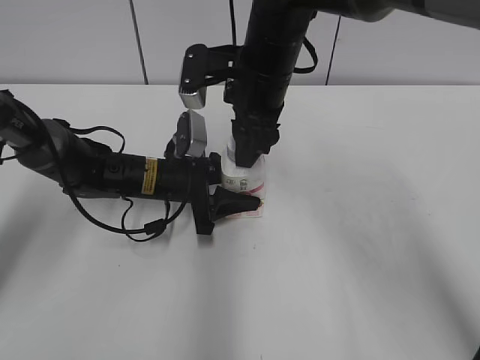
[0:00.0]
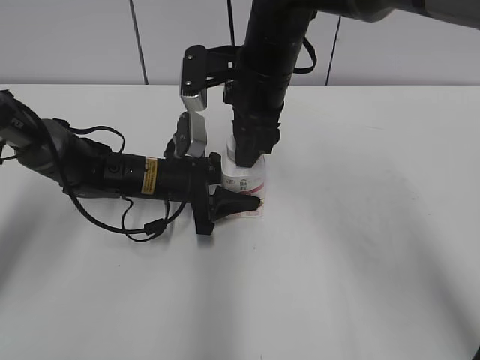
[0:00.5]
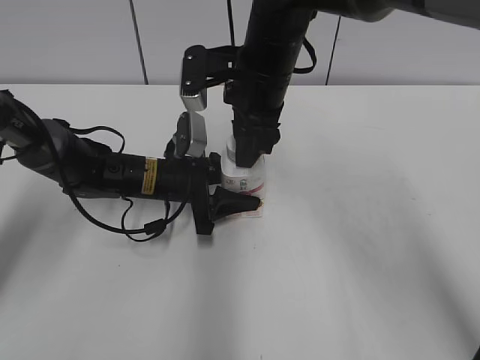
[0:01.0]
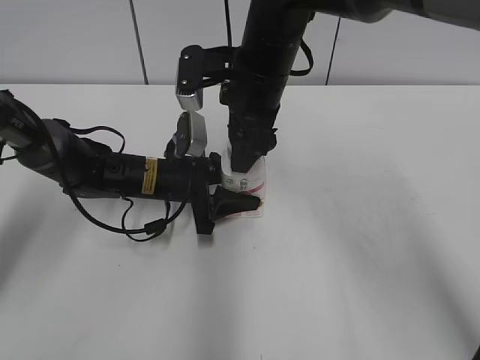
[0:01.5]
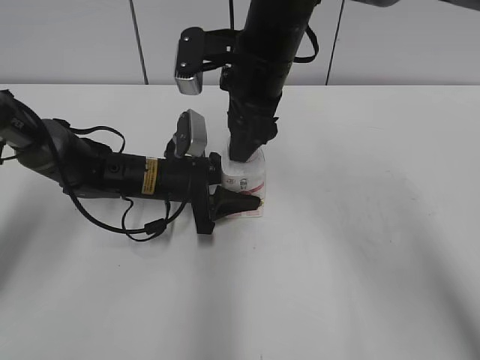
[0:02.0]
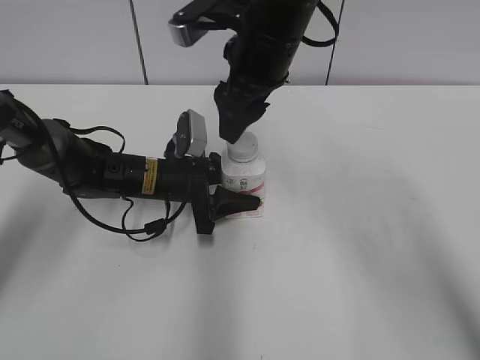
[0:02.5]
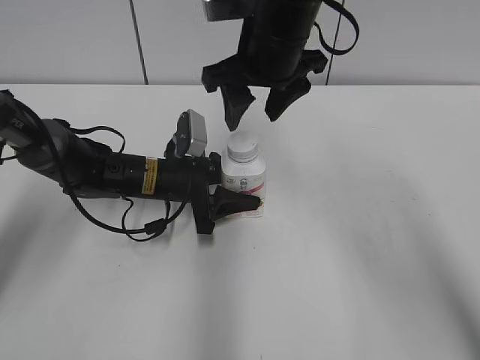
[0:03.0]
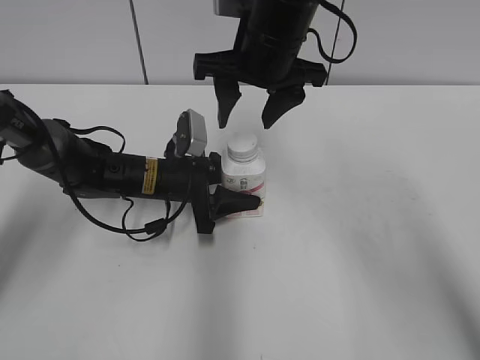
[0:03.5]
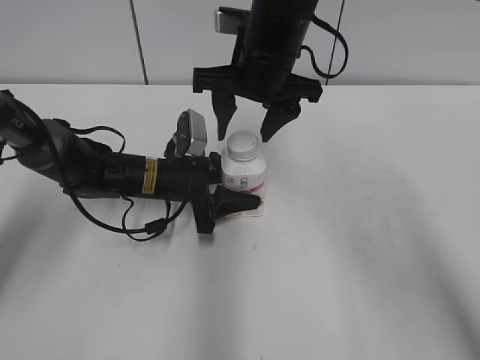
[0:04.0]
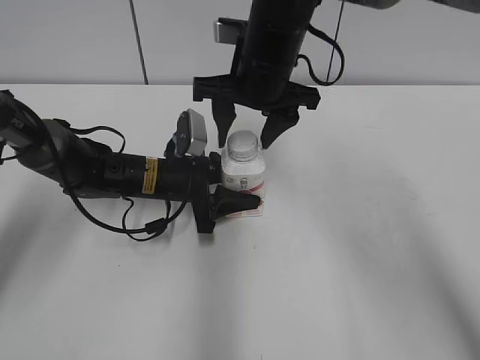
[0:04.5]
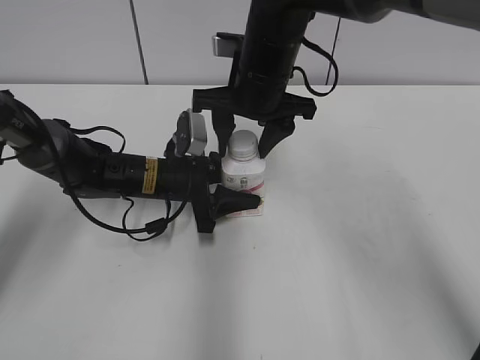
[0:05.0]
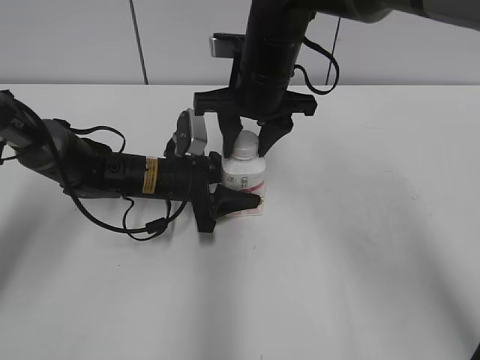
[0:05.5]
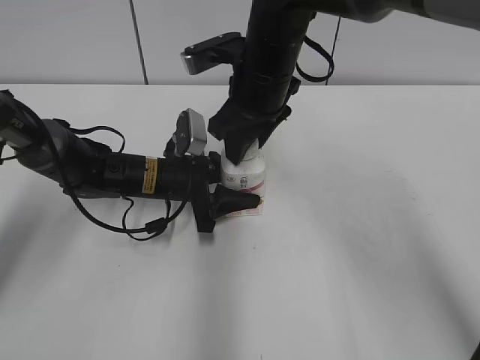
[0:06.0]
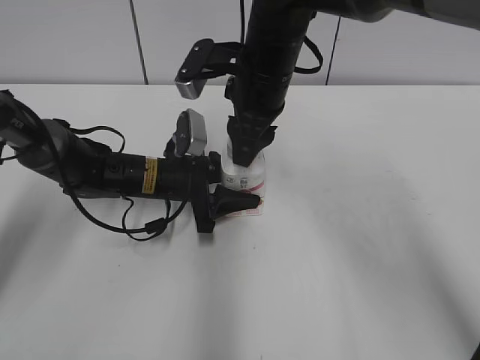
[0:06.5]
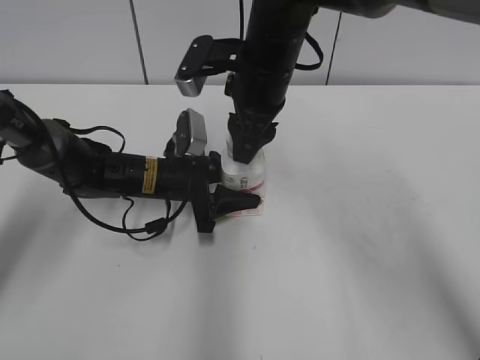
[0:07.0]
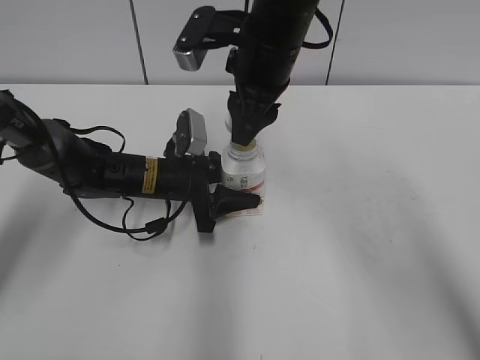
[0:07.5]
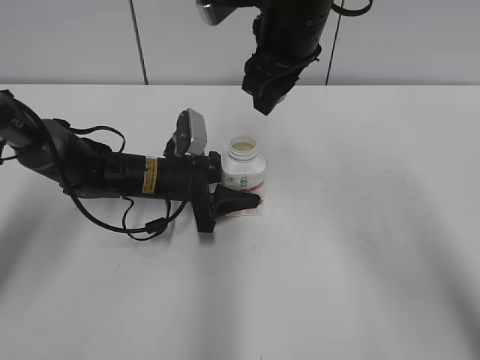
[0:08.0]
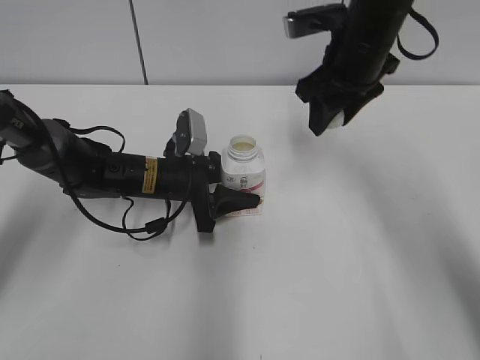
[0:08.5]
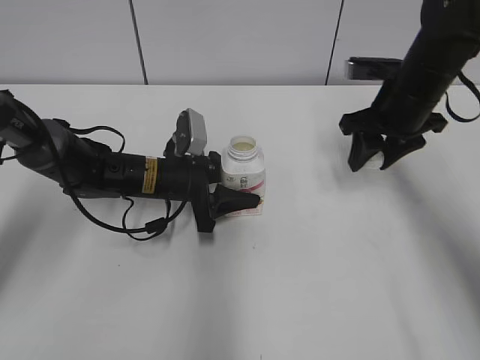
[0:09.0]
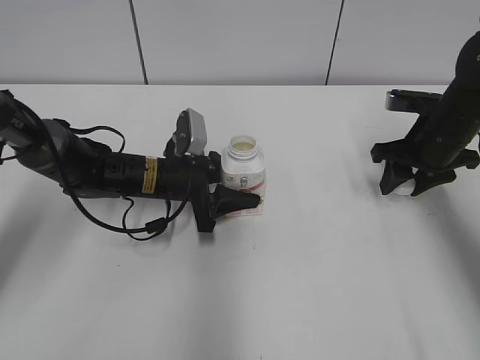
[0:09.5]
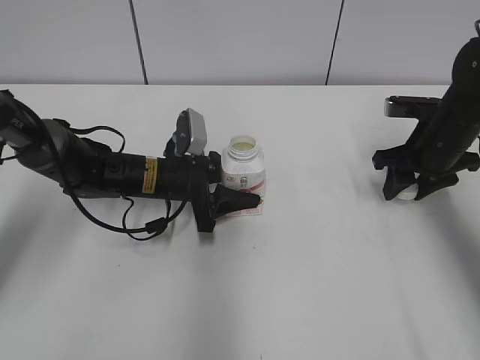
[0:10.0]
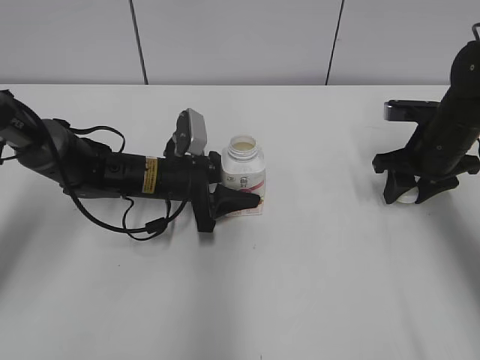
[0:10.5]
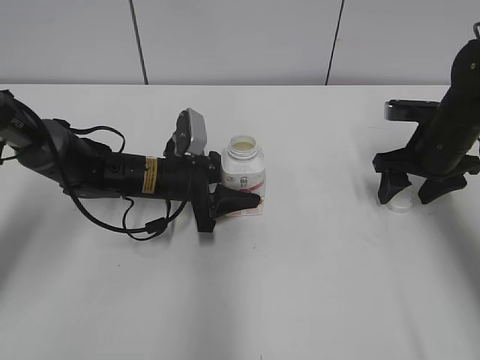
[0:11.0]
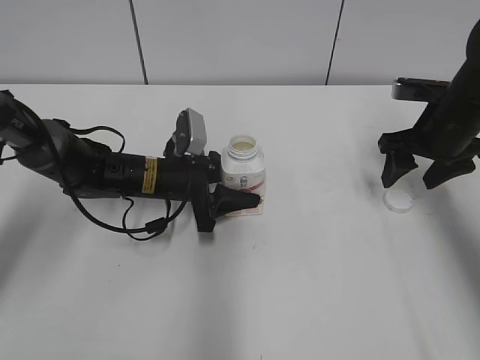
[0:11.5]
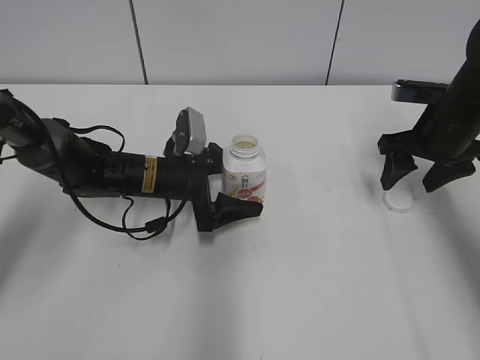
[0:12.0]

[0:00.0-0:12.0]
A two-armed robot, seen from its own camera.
Step, 0:08.0 to 0:11.0: Place the bottle cap on the right.
0:00.0 to 0:02.0: The right gripper opens its fingers.
0:04.0 to 0:06.0: The right gripper closes its fingers.
0:06.0 to 0:08.0: The right gripper shifts roughly 5 cm upward.
0:08.0 to 0:10.0: The right gripper shifts approximately 25 cm to the right and downward.
0:10.0 to 0:12.0: The left gripper opens up. Meanwhile the right gripper opens its fingers.

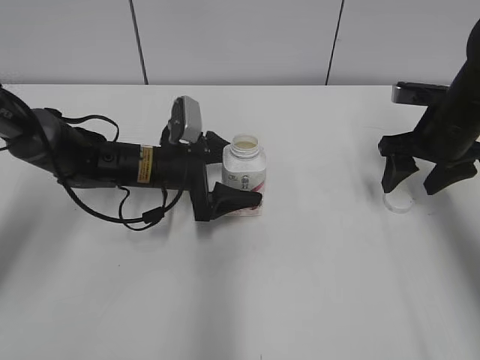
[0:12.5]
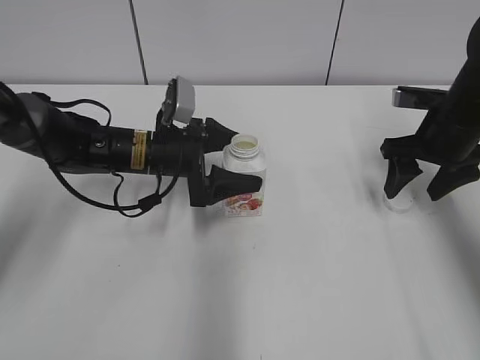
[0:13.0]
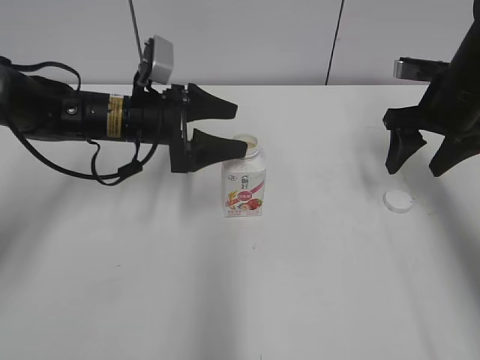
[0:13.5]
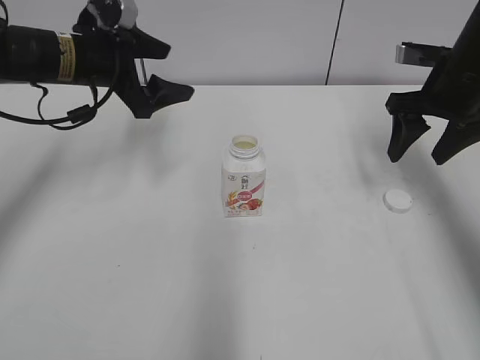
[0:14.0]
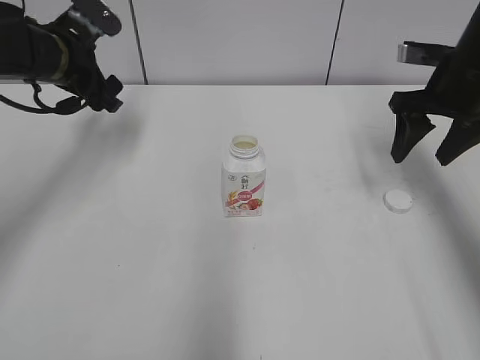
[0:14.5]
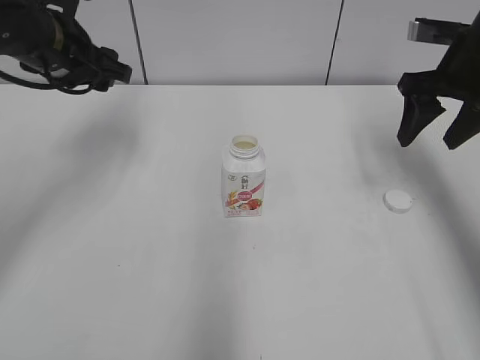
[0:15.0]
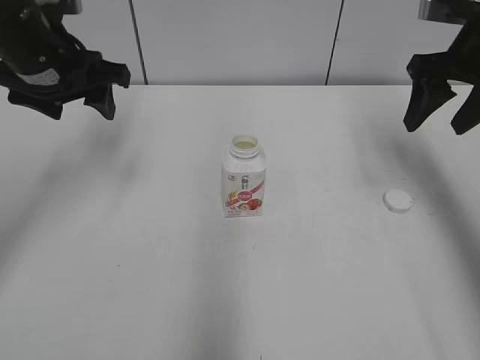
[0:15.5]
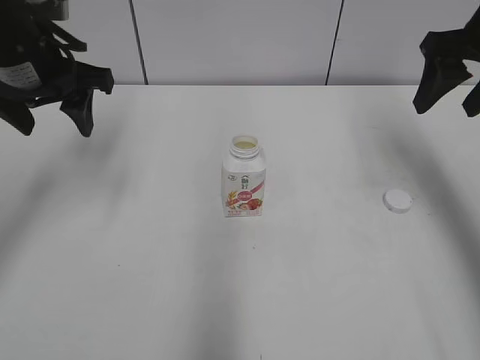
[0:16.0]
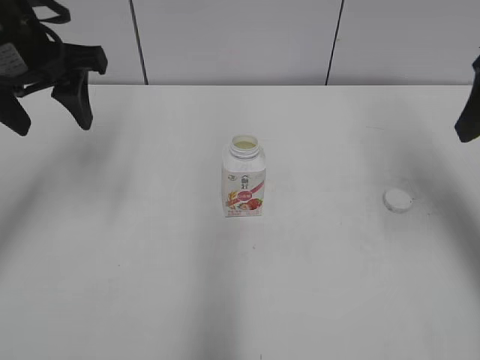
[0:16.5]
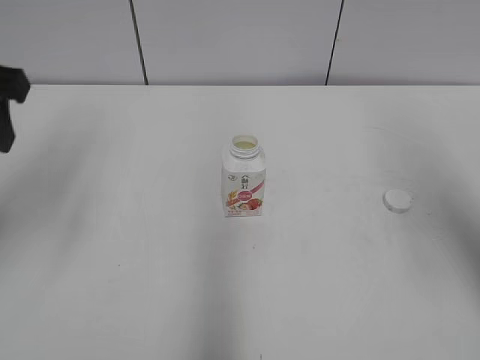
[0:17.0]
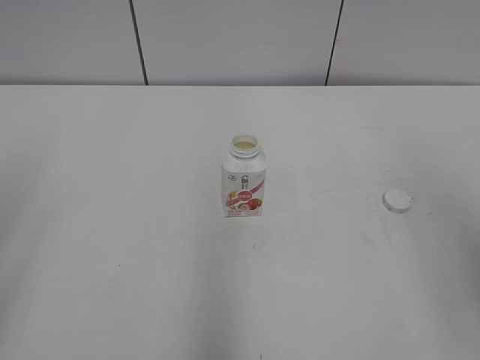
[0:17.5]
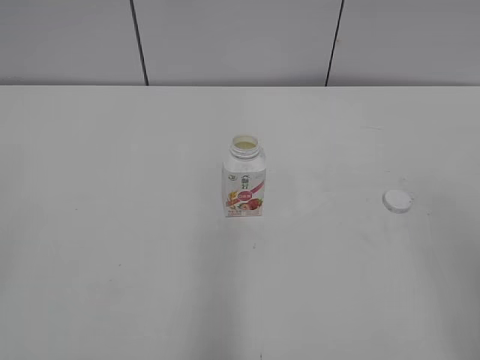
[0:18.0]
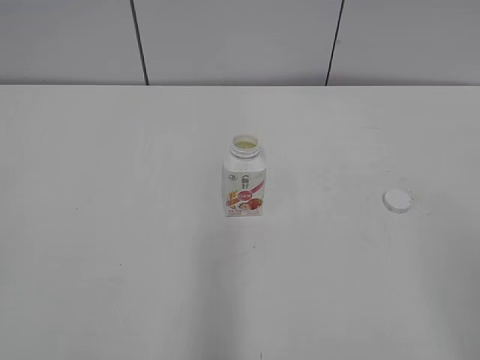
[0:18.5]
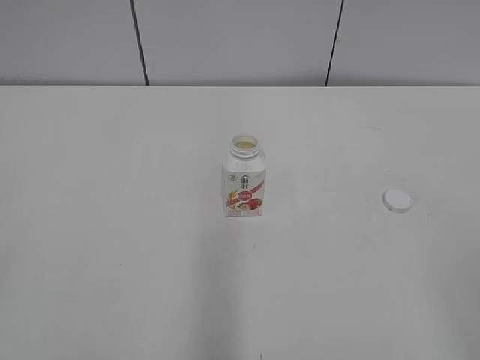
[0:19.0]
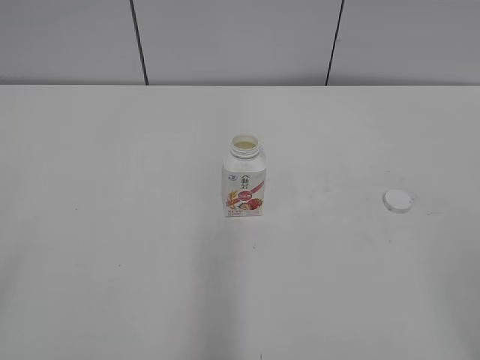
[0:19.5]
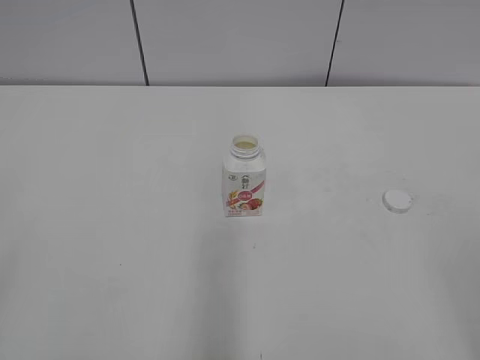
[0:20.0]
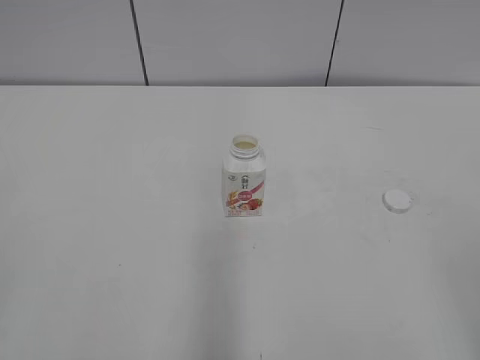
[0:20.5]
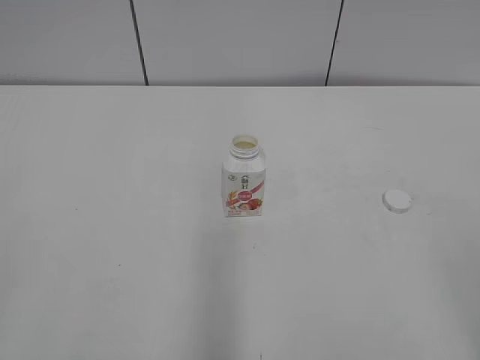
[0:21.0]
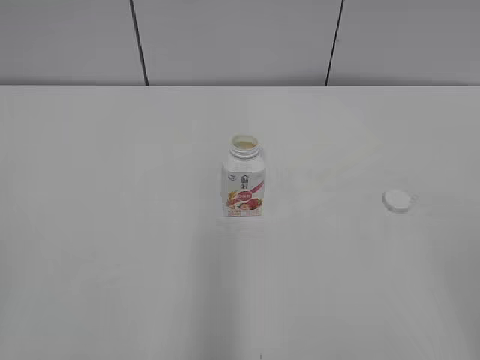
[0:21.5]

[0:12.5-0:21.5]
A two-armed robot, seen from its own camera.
0:12.5 to 0:14.5: The right gripper shifts roughly 5 cm upward. Meanwhile the left gripper shifts some 20 cm upward and to the left.
0:14.5 to 0:17.0: Both grippers travel together backward and upward, about 20 cm. The left gripper closes up.
0:17.0 to 0:19.5: The grippers both shift backward by some 25 cm.

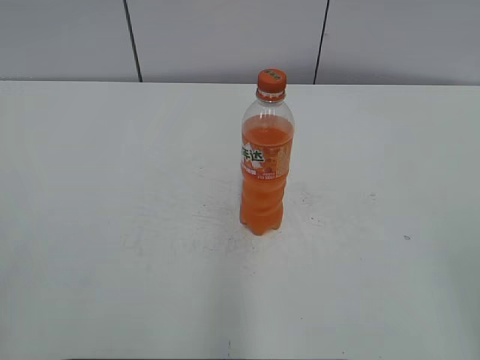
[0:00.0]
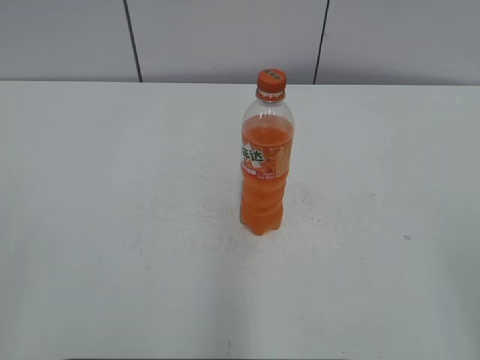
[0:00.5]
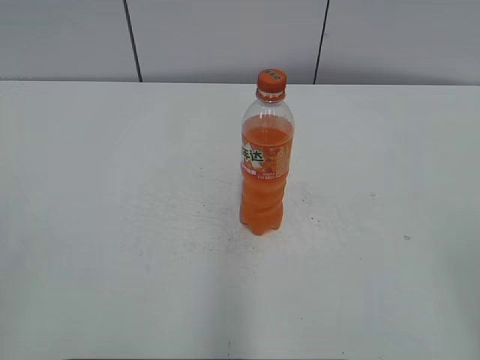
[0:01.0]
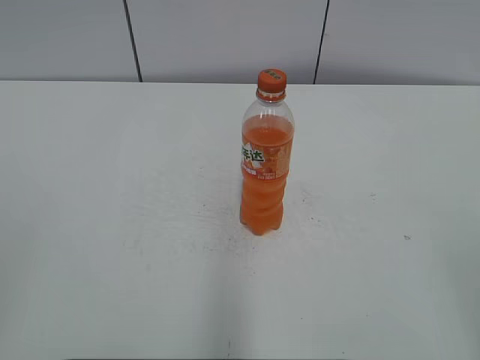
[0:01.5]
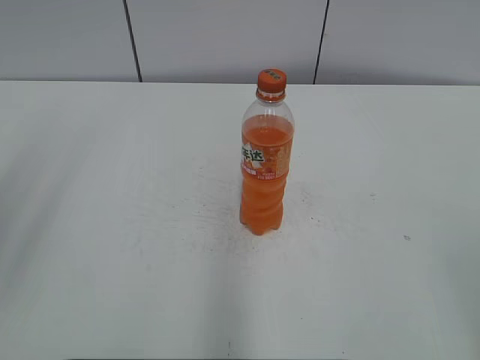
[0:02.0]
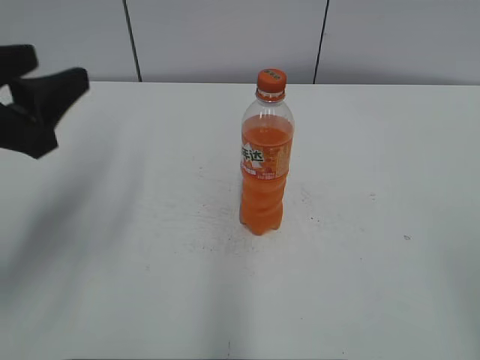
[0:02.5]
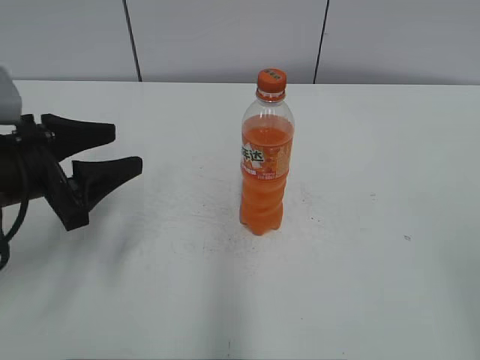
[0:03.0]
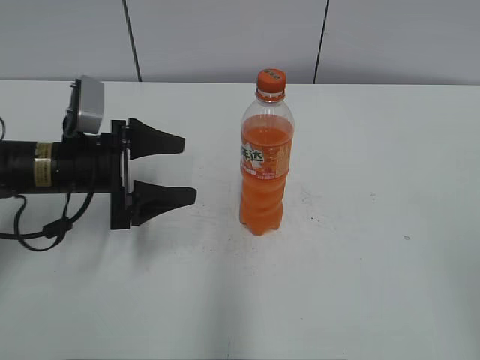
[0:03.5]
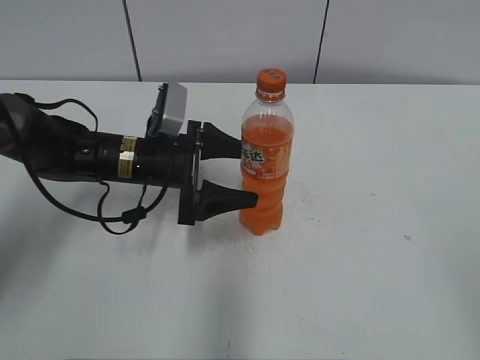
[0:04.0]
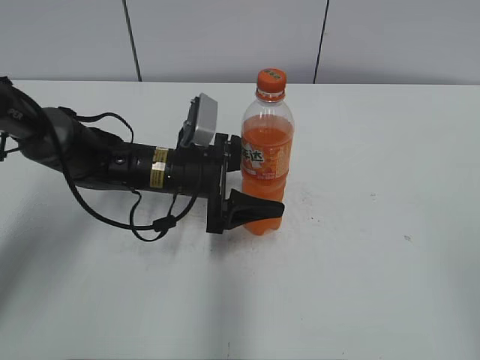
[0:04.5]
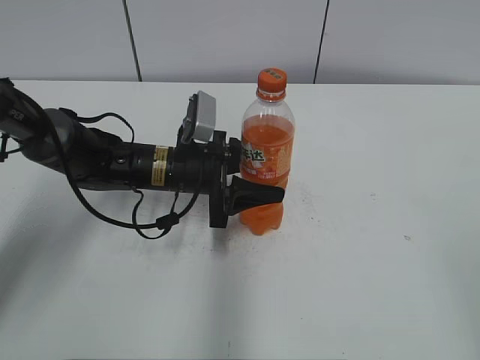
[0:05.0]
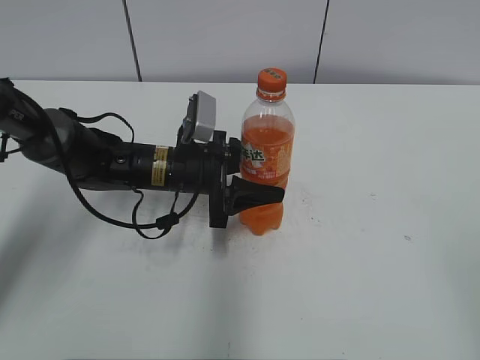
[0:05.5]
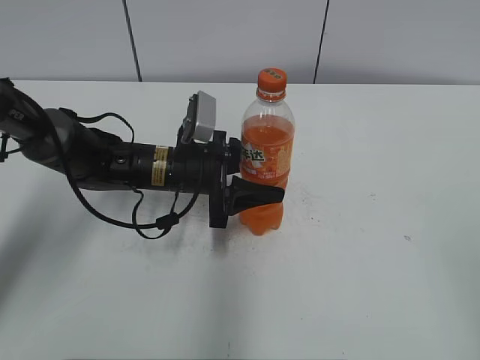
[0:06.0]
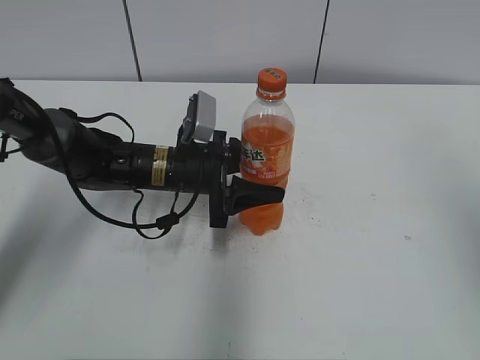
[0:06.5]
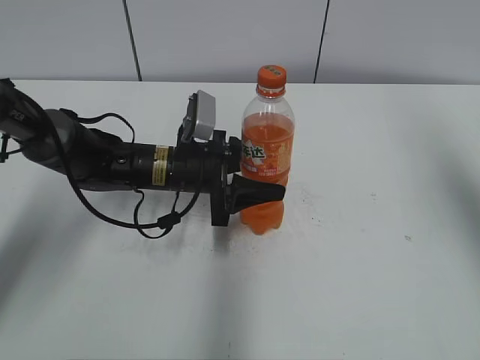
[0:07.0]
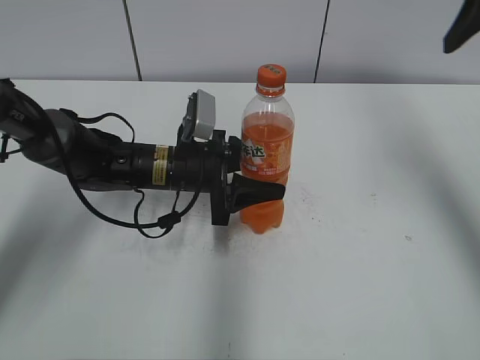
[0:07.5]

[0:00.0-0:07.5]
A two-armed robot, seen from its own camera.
Step, 0:00.0 to 0:05.0: Grab the Mirinda with the left hand.
0:02.0 to 0:04.0: The left gripper shifts approximately 40 cm downward, forward and to the right, and opens.
0:04.0 to 0:05.5: The left gripper ends up some 5 cm from where it was, and closes up.
0:05.5 to 0:07.5: The right gripper moves forward, roughly 30 cm.
